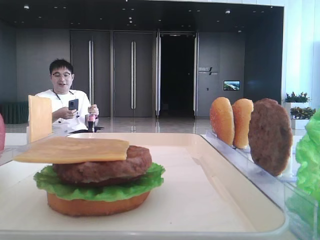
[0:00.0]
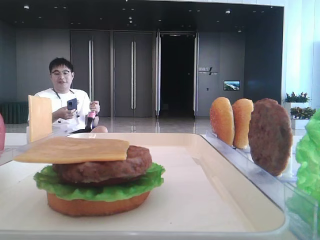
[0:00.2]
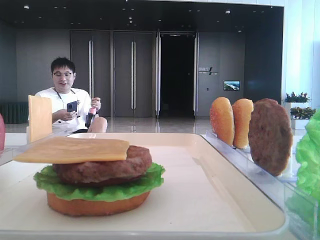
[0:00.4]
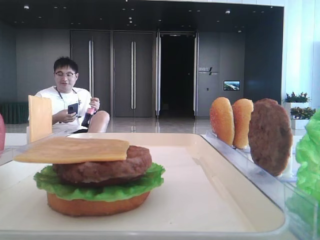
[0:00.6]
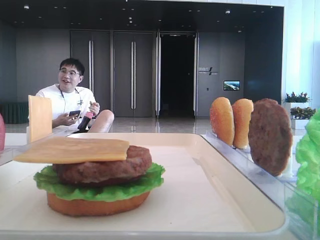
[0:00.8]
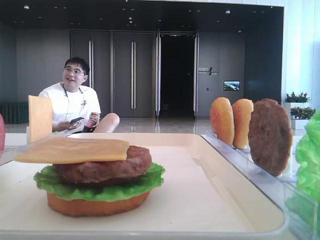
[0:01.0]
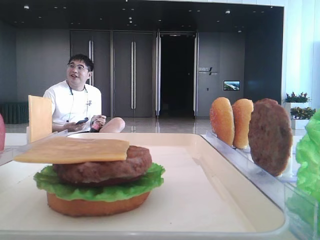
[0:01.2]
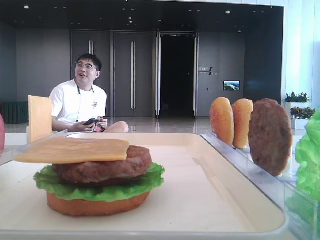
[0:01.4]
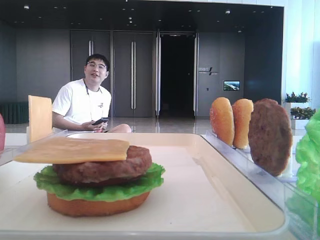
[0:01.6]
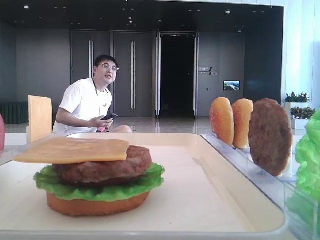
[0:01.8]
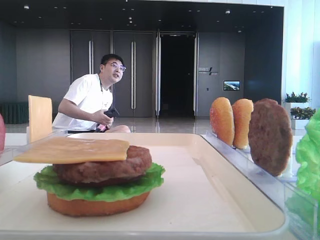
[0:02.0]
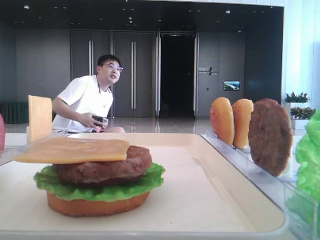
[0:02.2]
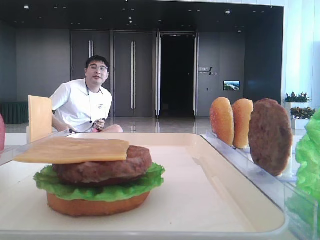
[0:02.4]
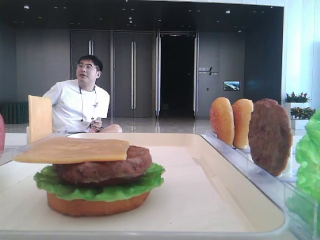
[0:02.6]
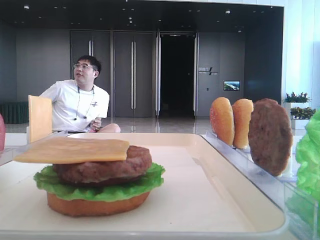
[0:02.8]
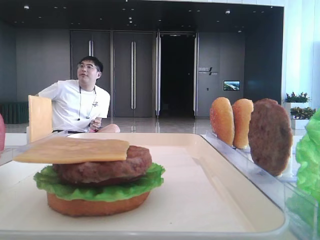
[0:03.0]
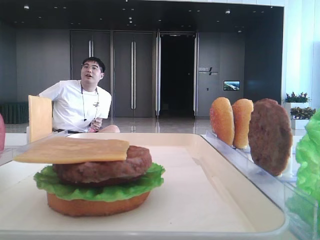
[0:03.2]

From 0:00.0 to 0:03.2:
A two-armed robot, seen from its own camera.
From 0:00.0 to 0:01.6: The left gripper heads downward and backward, covering approximately 15 cm.
From 0:01.6 to 0:03.2: Both grippers stay put.

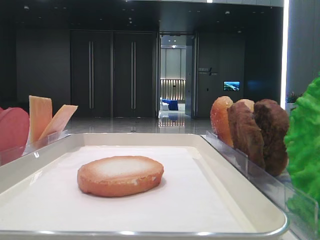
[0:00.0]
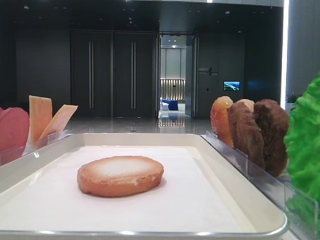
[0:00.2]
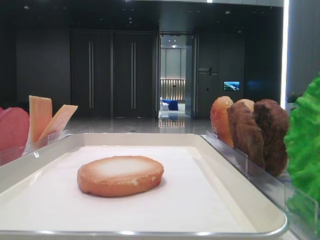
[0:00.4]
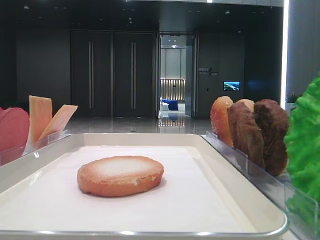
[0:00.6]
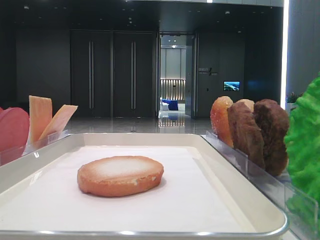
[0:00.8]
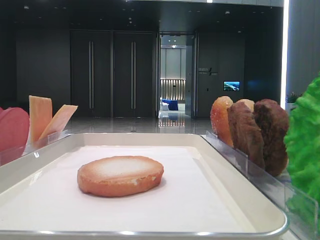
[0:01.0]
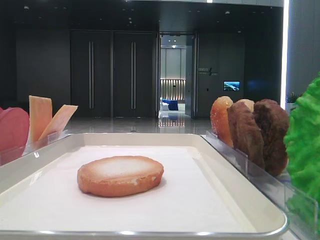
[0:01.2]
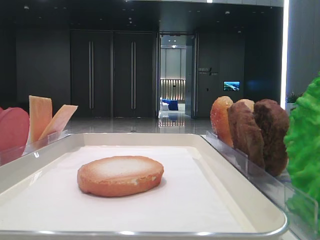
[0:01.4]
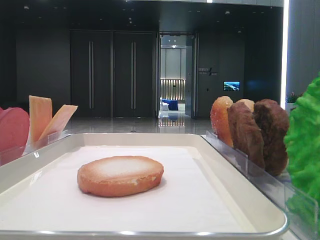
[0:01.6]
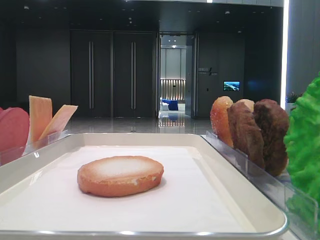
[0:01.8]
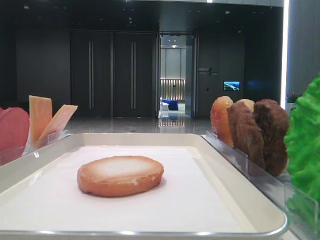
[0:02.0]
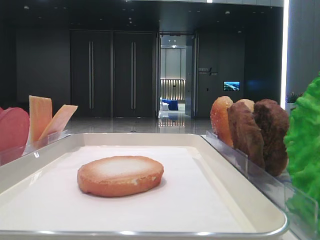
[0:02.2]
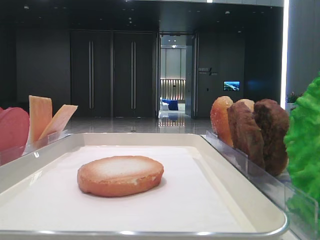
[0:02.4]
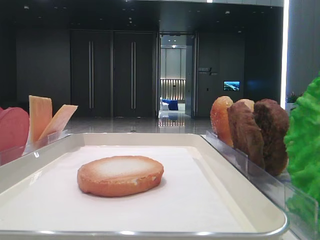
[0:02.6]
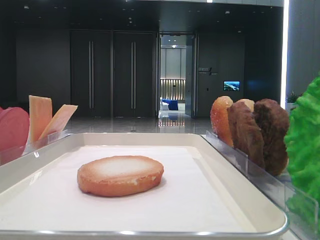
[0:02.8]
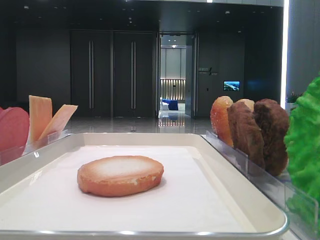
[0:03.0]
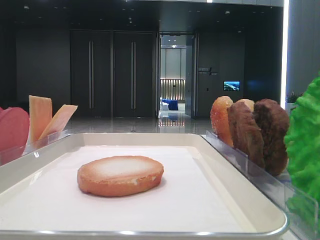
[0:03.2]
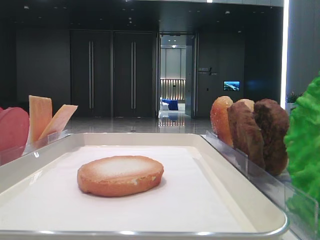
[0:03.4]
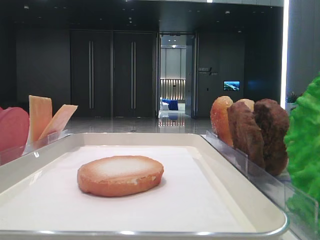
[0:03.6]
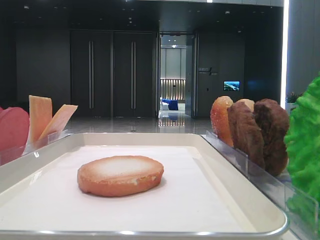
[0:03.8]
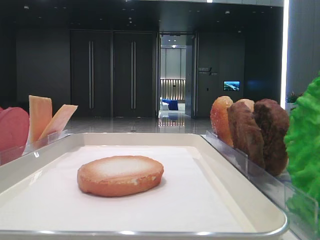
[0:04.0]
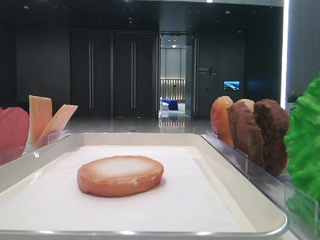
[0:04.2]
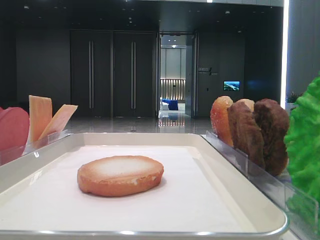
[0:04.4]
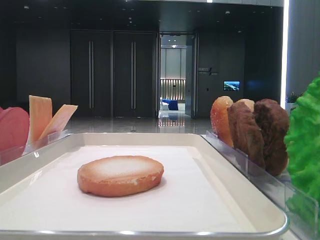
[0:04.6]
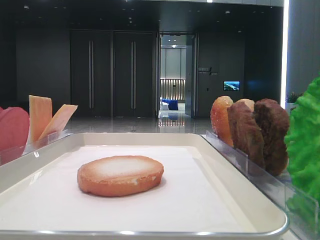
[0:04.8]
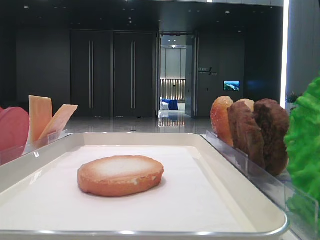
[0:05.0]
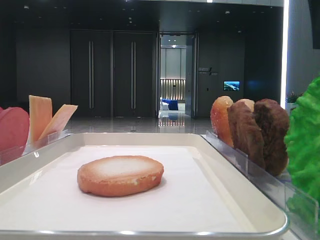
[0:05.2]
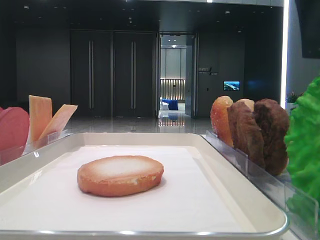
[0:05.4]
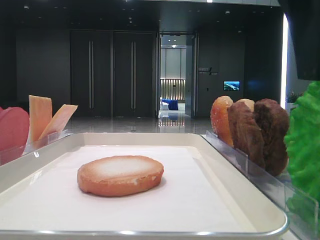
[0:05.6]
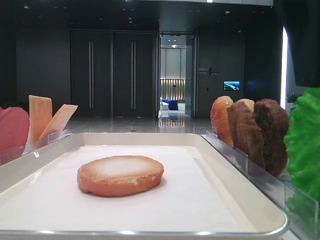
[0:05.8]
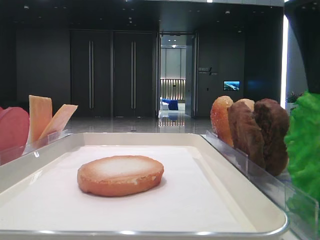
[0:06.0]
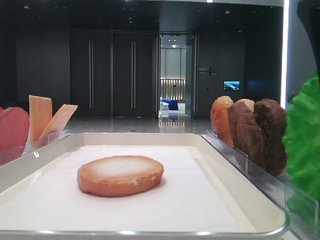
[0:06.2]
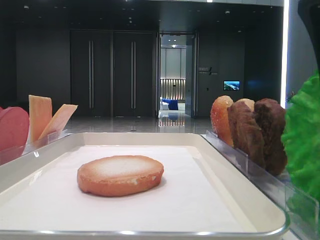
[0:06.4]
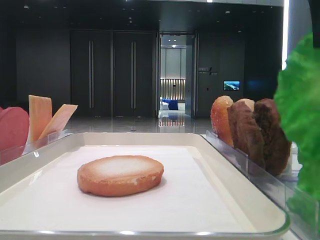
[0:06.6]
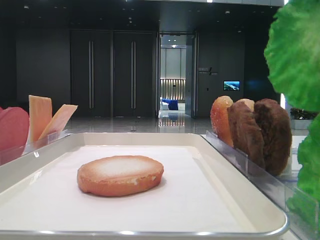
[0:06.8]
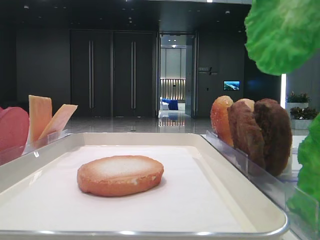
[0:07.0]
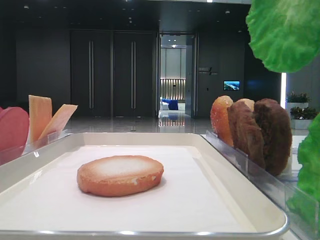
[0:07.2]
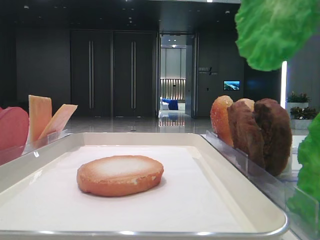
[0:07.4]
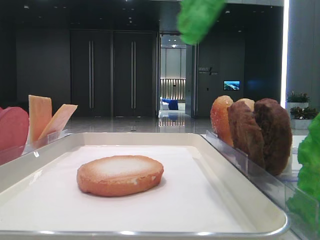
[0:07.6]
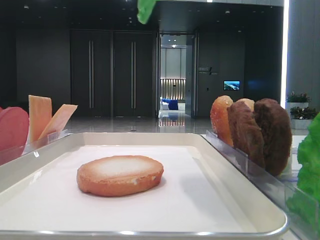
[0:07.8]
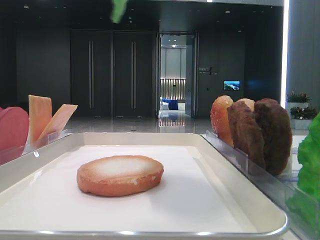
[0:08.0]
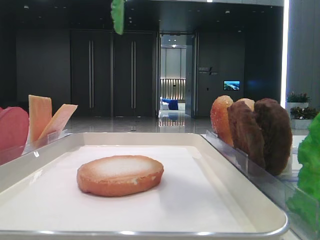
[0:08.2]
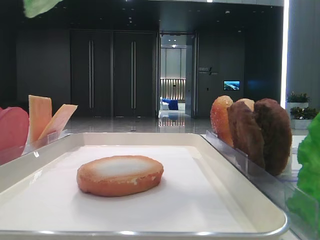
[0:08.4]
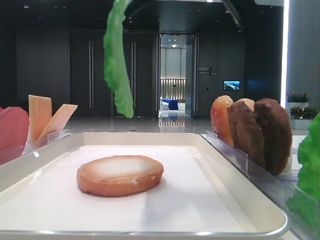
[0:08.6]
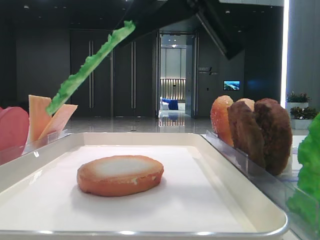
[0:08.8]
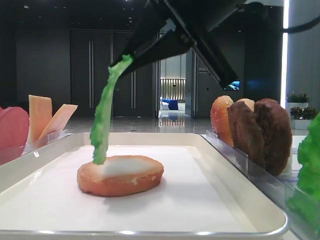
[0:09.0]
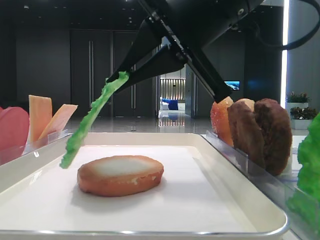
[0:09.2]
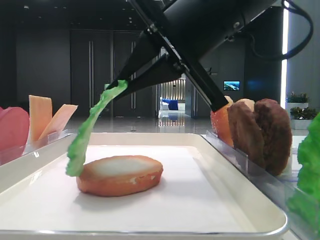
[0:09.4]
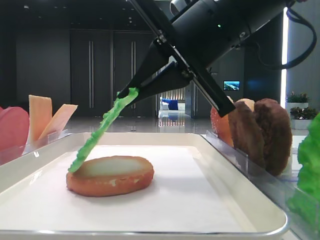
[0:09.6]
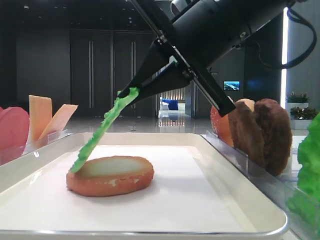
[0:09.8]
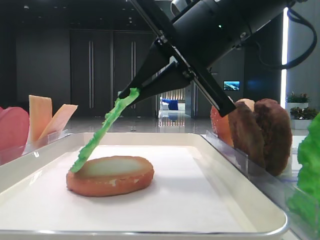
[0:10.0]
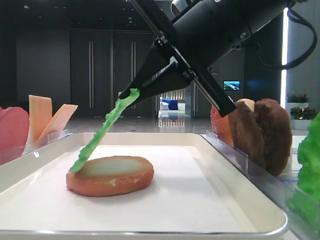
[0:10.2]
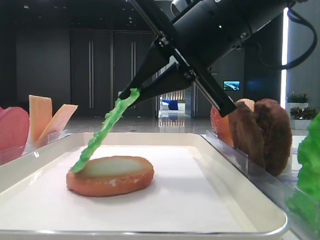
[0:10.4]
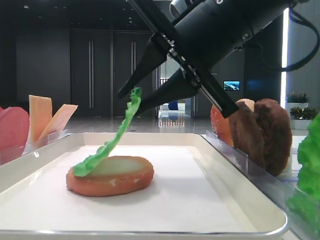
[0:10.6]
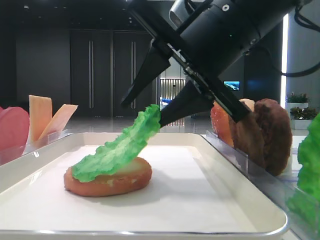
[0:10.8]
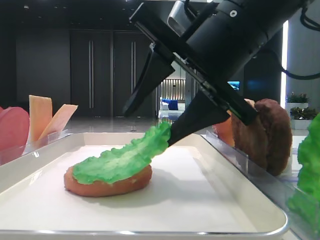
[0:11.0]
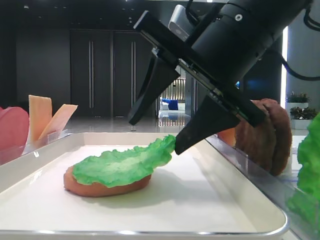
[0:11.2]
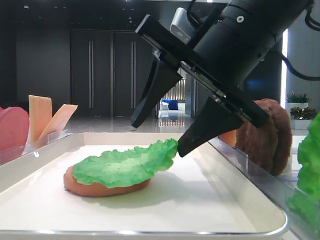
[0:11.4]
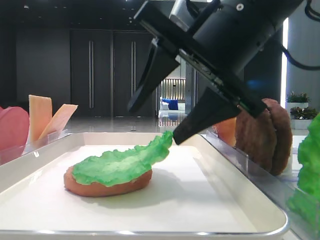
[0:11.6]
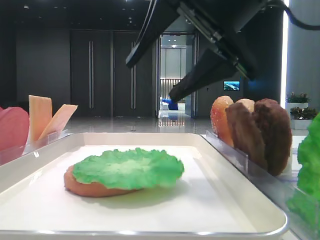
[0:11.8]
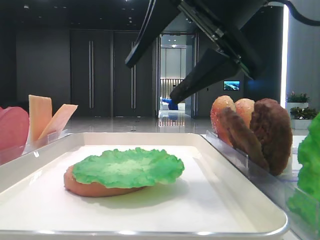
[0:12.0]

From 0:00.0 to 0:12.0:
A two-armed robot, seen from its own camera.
Step, from 0:00.0 to 0:06.2: Grab the lettuce leaf with the right hand.
Step, from 0:06.4 to 0:11.8: Place the lettuce leaf on the bottom bread with the right hand.
From 0:04.4 to 0:06.0: The right gripper heads forward, covering about 5 cm, and closes up.
From 0:06.0 to 0:07.6: The right gripper shifts some 10 cm upward, and closes.
From 0:07.6 to 0:09.0: The right gripper travels downward and forward by approximately 15 cm.
From 0:09.0 to 0:10.4: The grippers make only small movements.
From 0:10.4 to 0:12.0: The right gripper opens its fingers.

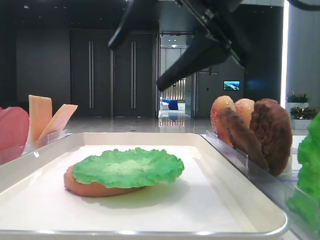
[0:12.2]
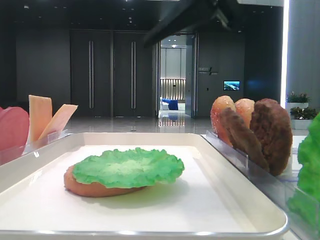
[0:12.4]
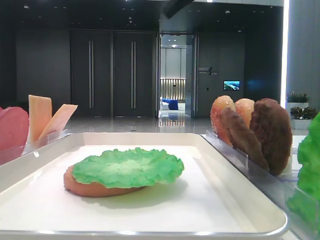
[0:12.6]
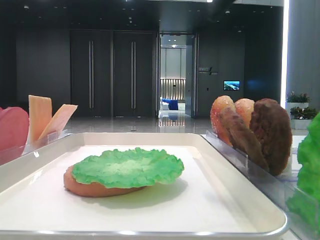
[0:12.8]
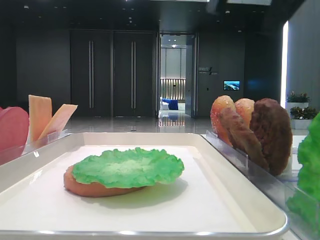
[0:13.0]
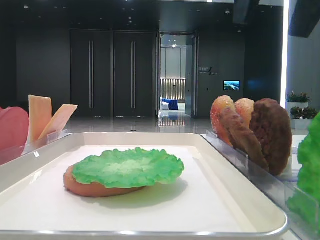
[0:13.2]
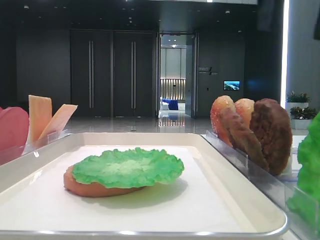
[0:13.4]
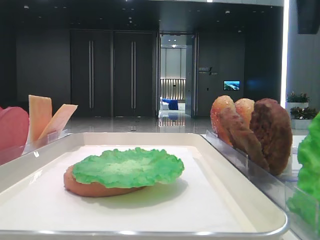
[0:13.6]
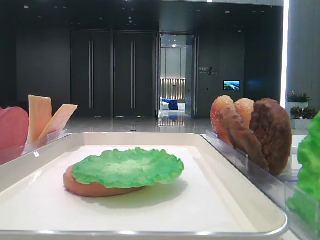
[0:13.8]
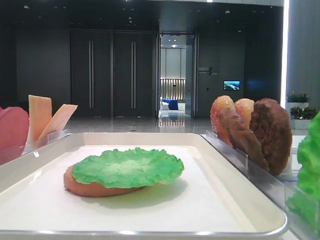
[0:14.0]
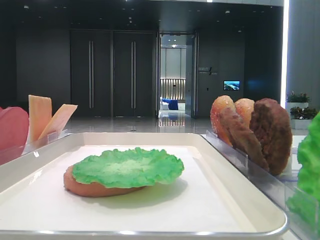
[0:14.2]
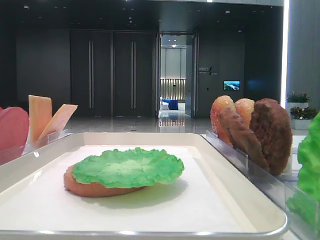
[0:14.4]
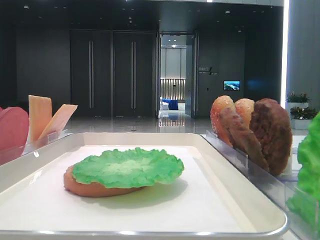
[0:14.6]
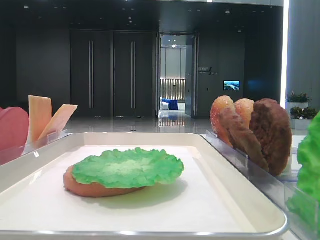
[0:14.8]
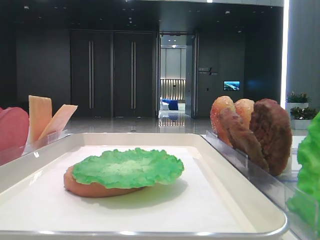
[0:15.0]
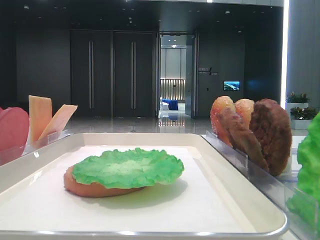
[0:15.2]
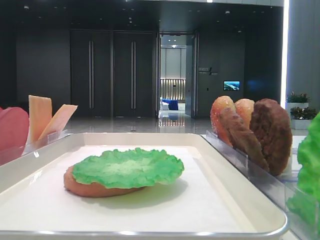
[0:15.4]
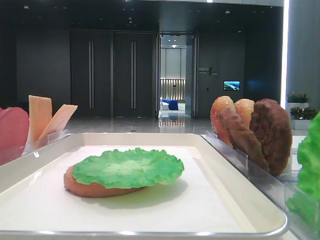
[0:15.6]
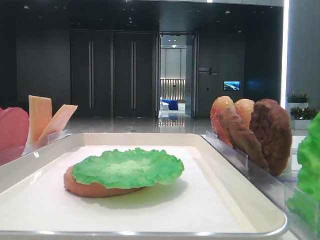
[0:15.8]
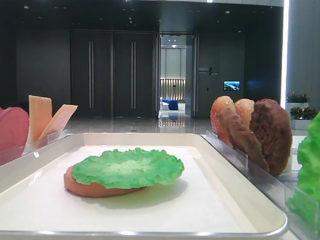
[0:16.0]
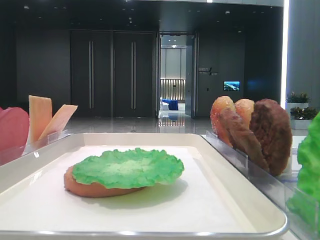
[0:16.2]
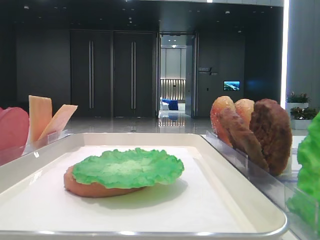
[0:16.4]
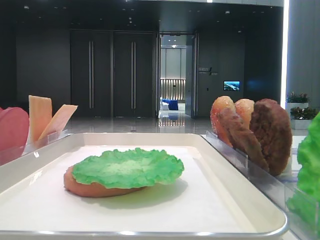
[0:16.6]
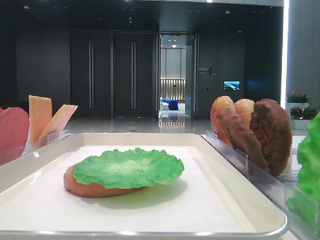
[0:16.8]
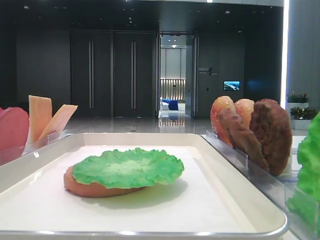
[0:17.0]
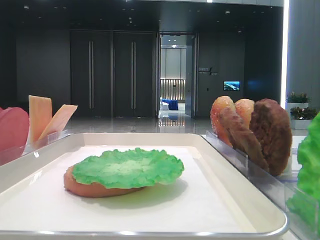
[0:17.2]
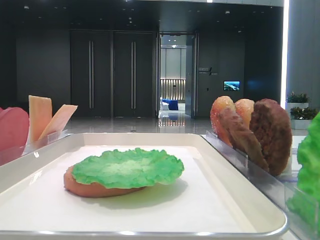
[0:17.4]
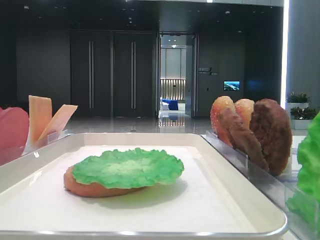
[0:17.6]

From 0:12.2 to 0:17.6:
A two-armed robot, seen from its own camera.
From 0:12.2 to 0:13.6: The right gripper moves to the right and upward, roughly 15 cm.
From 0:13.6 to 0:15.0: The right gripper moves backward and to the right, about 20 cm.
From 0:16.2 to 0:17.6: Both grippers stay about where they are.

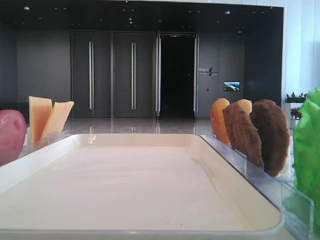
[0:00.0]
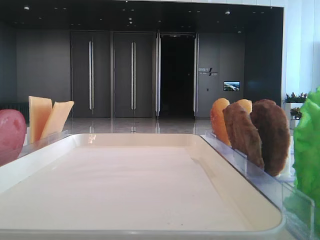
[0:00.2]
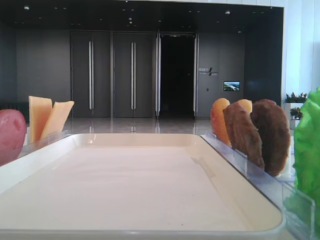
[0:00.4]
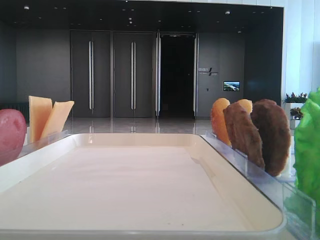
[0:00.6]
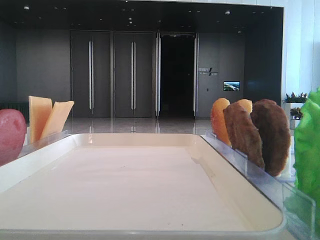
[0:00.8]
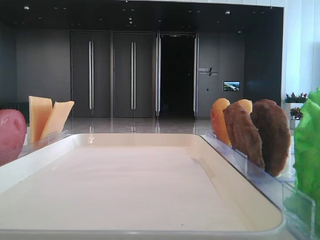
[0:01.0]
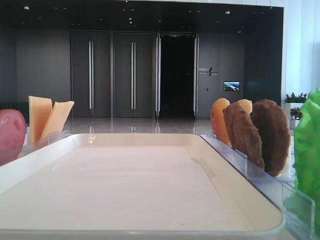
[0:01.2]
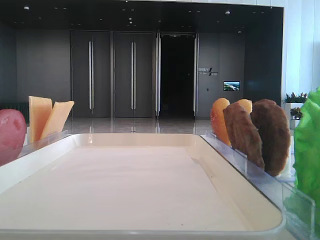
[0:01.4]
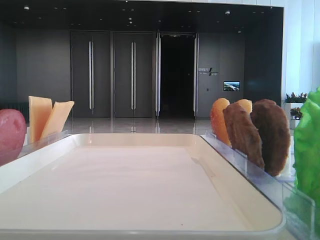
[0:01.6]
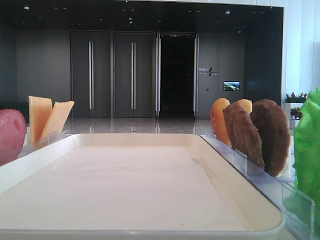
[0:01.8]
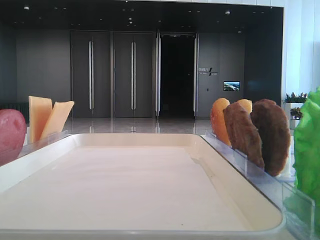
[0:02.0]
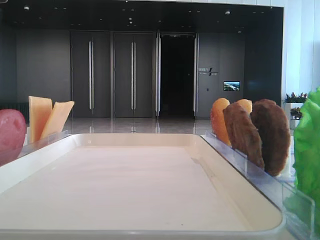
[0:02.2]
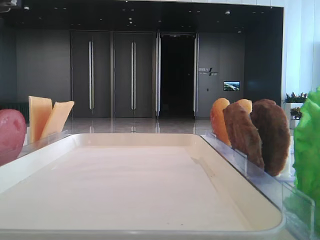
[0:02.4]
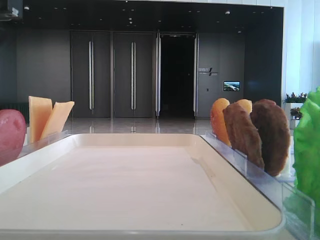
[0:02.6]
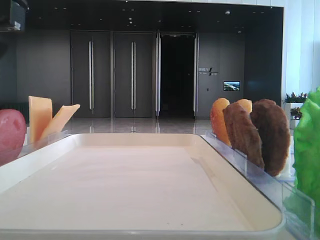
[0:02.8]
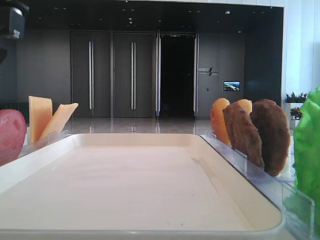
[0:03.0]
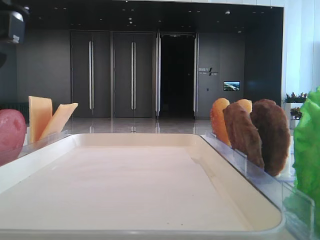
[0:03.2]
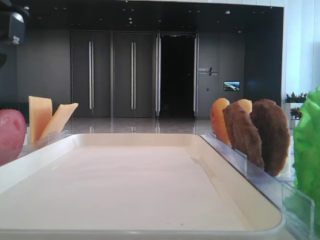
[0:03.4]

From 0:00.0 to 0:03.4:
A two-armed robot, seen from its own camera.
From 0:01.6 to 0:03.4: The left gripper is displaced downward by about 5 cm.
